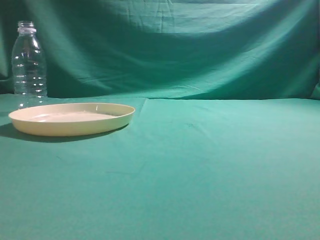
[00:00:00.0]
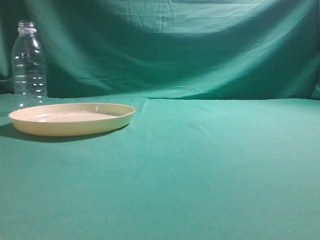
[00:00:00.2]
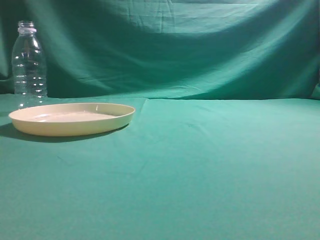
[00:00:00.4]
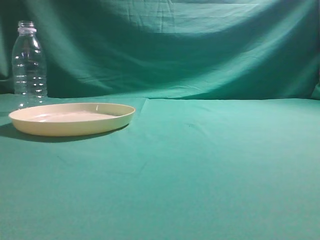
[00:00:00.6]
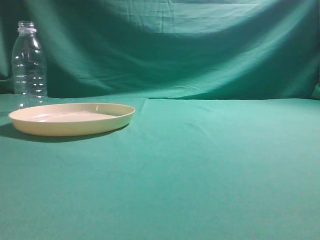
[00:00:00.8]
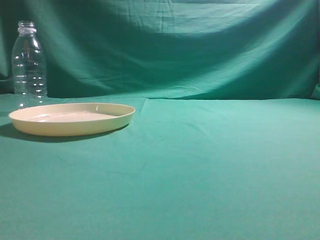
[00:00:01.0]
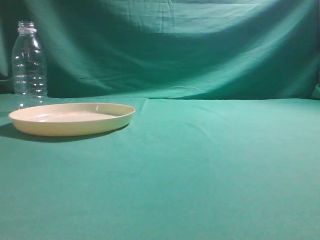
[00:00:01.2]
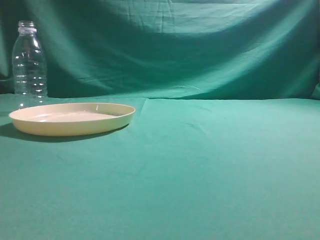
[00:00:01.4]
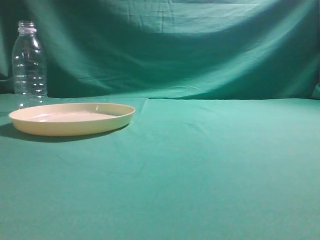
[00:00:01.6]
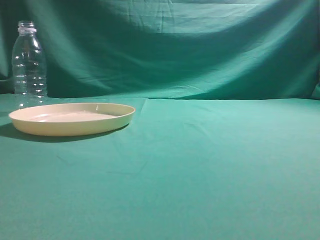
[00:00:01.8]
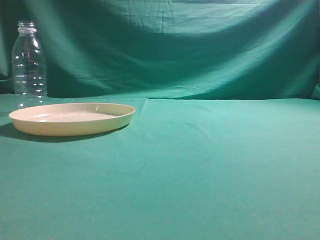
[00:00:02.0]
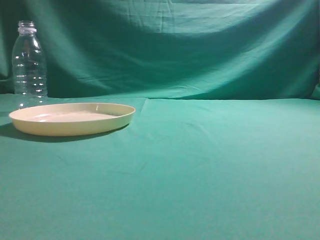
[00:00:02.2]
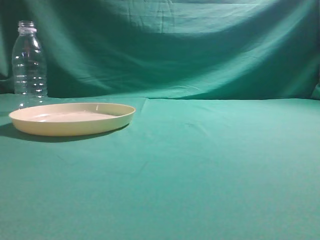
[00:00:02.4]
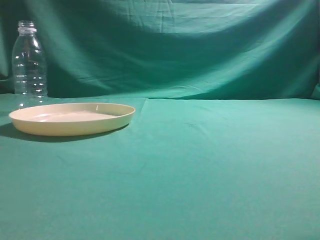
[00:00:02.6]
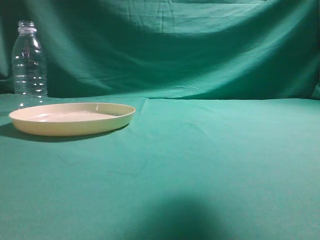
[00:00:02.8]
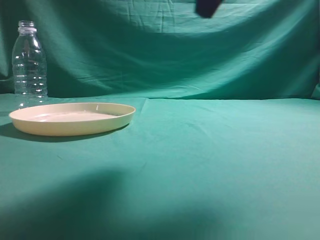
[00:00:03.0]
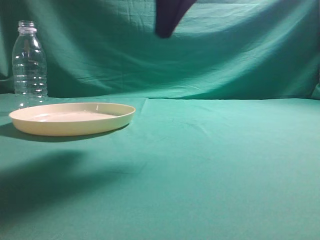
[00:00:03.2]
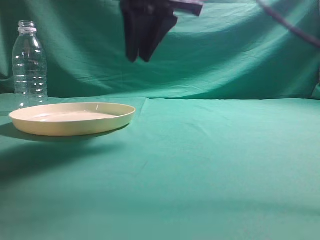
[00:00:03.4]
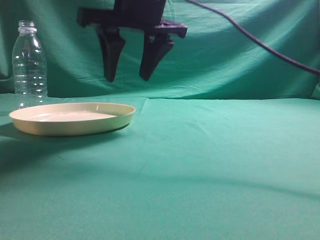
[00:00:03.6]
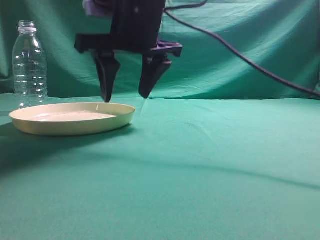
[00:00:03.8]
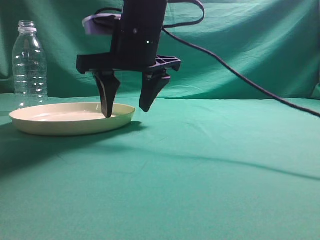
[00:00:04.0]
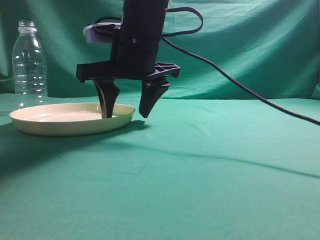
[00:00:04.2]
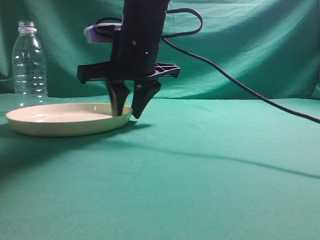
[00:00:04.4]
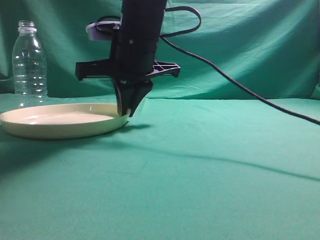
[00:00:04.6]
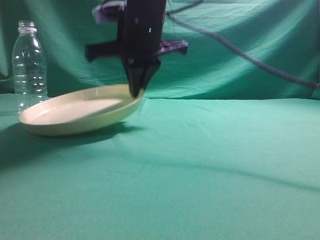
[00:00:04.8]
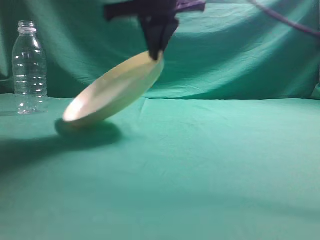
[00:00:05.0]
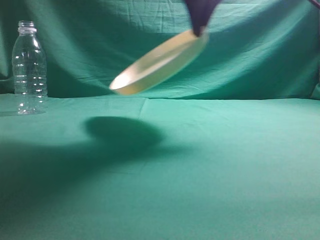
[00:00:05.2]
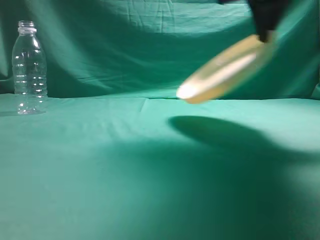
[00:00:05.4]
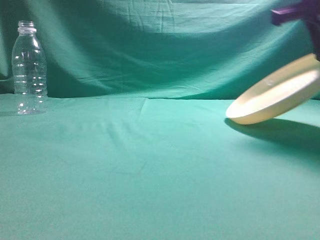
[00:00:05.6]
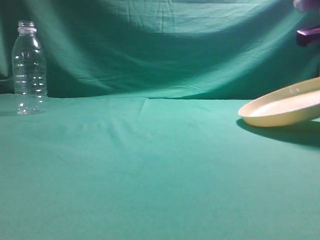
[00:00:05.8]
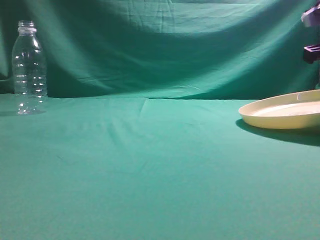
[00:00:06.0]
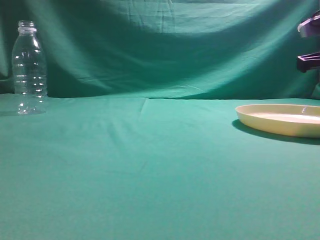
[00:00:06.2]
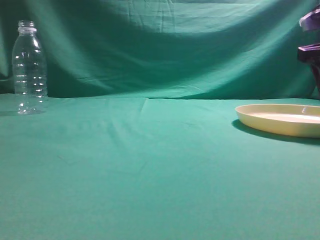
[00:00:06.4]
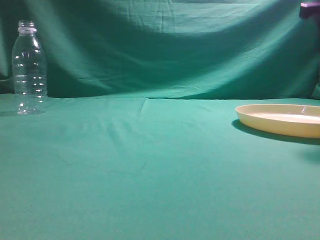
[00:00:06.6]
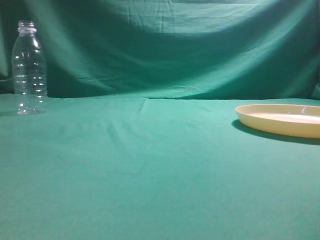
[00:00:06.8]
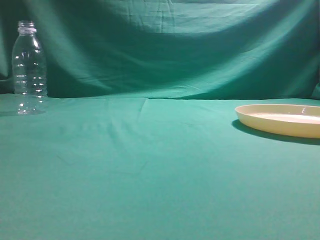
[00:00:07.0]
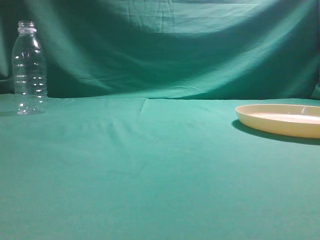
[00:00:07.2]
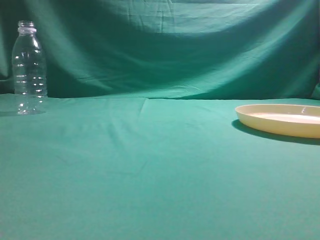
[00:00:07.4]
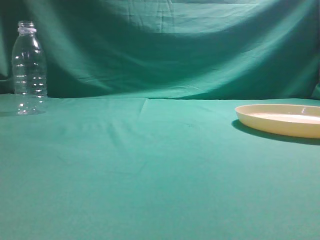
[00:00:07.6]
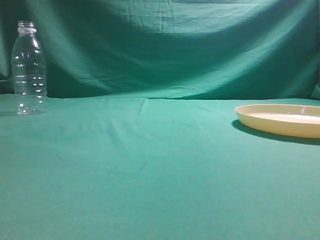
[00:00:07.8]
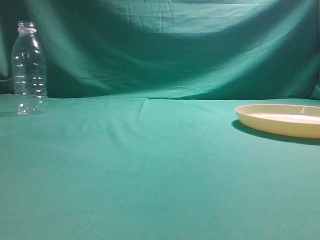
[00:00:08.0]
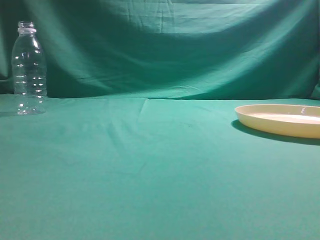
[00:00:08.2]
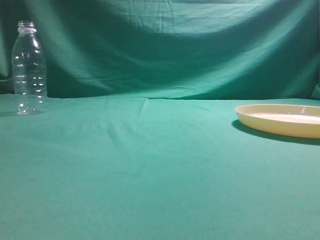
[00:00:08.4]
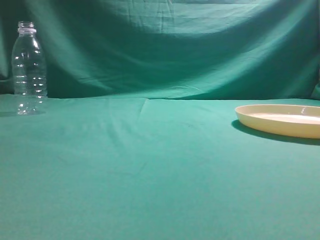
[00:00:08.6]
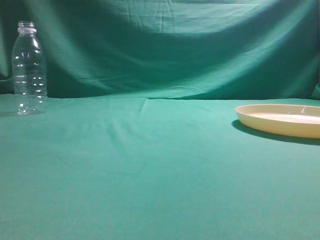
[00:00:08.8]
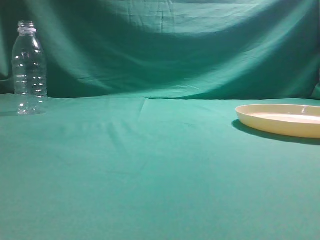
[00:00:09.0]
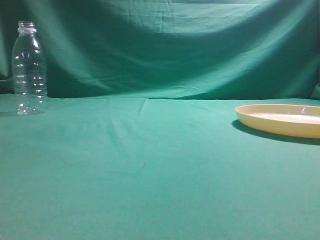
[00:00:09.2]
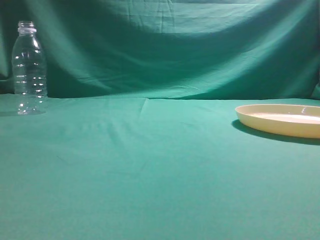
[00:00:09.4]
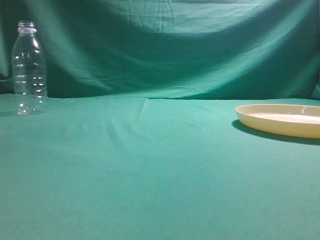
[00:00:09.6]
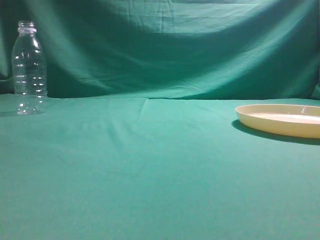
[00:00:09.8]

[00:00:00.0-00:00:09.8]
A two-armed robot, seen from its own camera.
Step, 00:00:00.0 to 00:00:05.0: Pick the container that can hold fruits.
Step, 00:00:05.2 to 00:00:06.8: Move the picked object to the right side of the table.
00:00:01.4 to 00:00:02.8: The right gripper is displaced forward, to the left and upward by about 20 cm.
00:00:02.8 to 00:00:04.2: The right gripper goes roughly 30 cm to the left, forward and downward, and opens up.
00:00:04.2 to 00:00:05.6: The right gripper shifts some 25 cm to the right and upward, and closes up.
00:00:05.6 to 00:00:07.0: The right gripper is displaced backward, upward and to the right by approximately 15 cm, and opens, then closes again.
